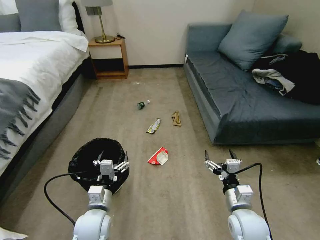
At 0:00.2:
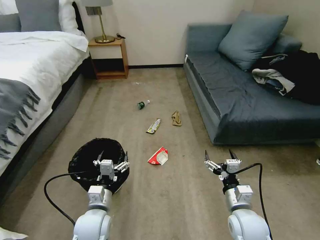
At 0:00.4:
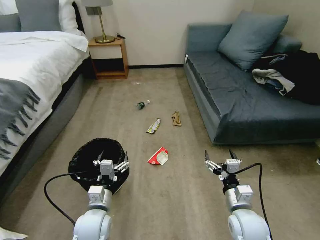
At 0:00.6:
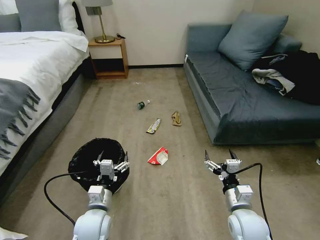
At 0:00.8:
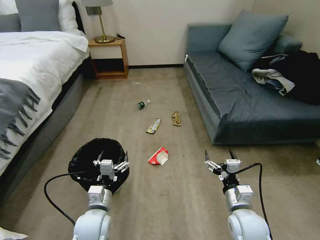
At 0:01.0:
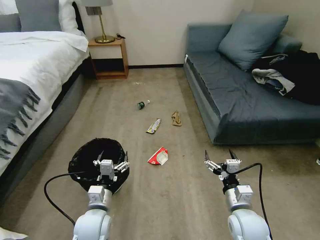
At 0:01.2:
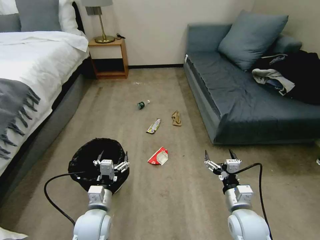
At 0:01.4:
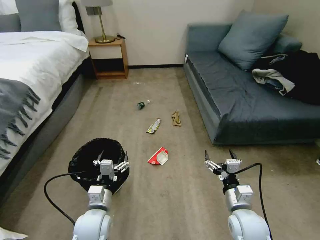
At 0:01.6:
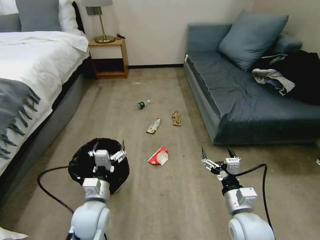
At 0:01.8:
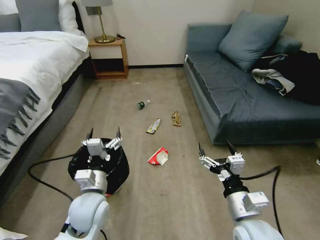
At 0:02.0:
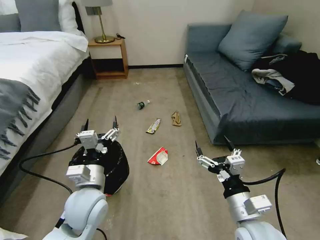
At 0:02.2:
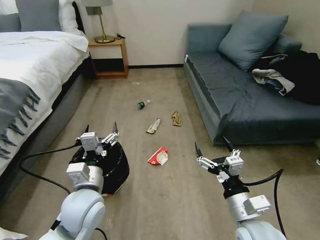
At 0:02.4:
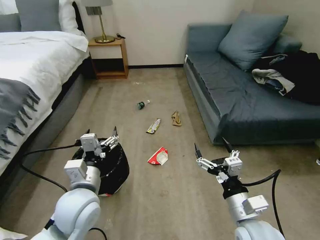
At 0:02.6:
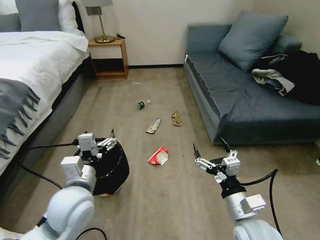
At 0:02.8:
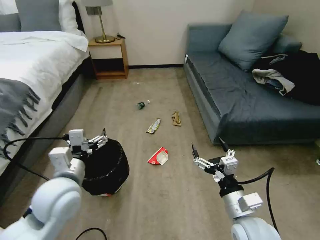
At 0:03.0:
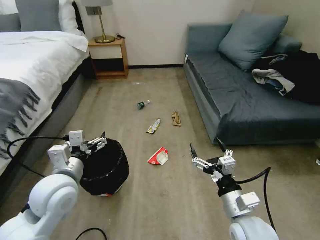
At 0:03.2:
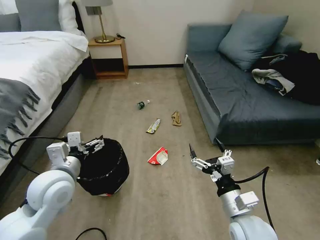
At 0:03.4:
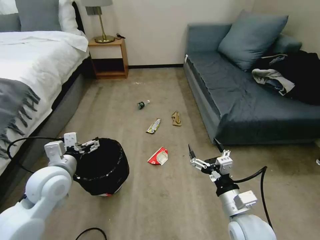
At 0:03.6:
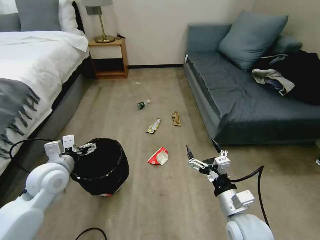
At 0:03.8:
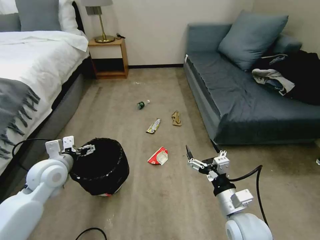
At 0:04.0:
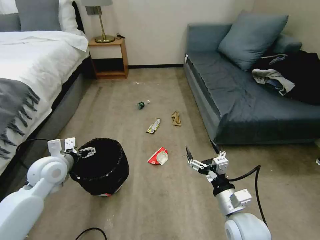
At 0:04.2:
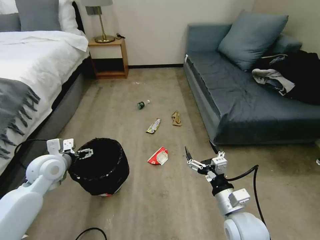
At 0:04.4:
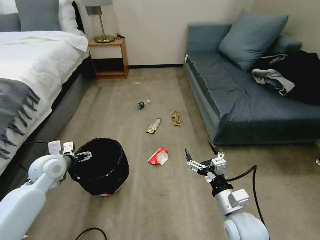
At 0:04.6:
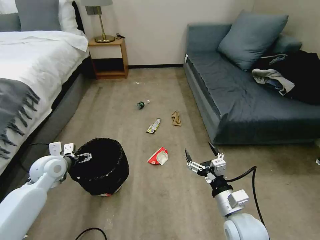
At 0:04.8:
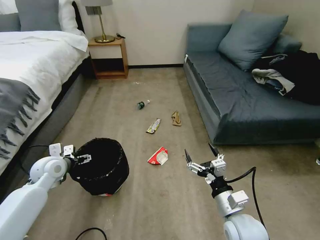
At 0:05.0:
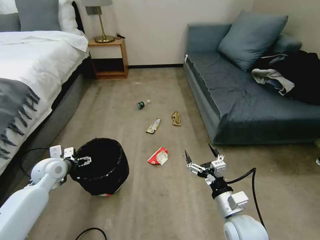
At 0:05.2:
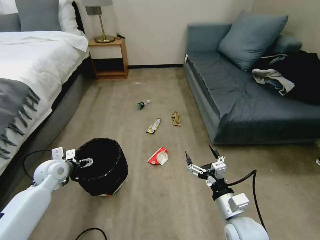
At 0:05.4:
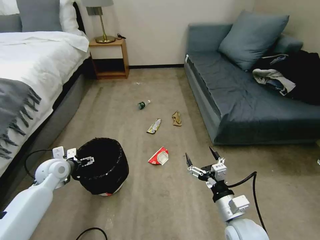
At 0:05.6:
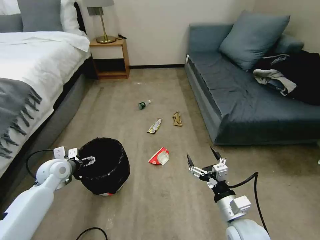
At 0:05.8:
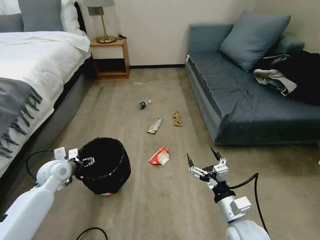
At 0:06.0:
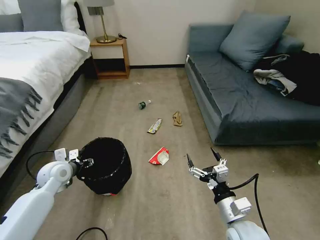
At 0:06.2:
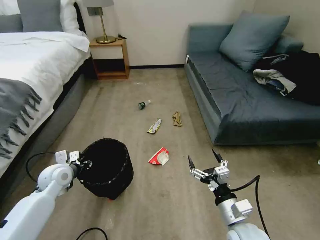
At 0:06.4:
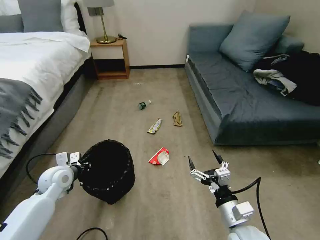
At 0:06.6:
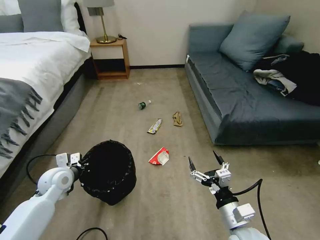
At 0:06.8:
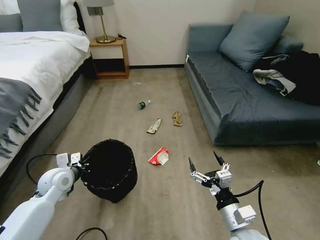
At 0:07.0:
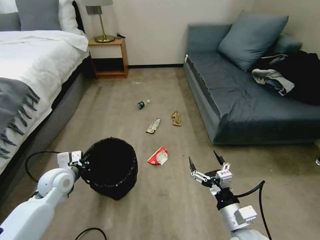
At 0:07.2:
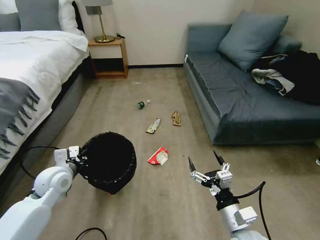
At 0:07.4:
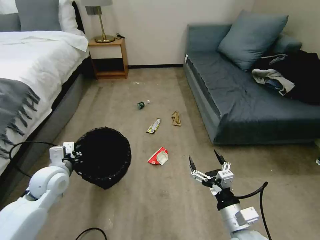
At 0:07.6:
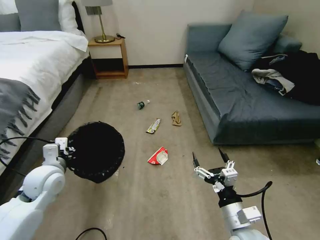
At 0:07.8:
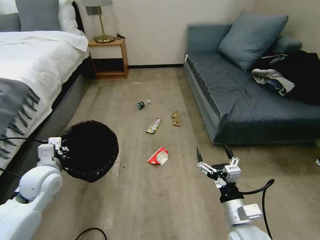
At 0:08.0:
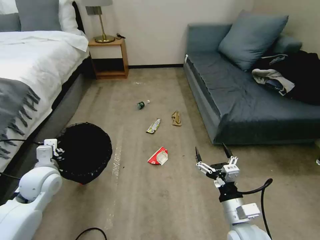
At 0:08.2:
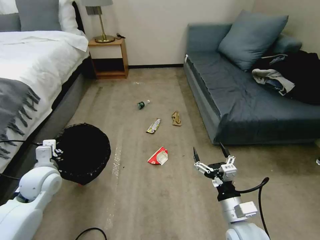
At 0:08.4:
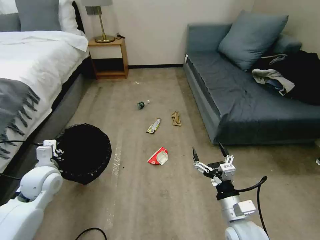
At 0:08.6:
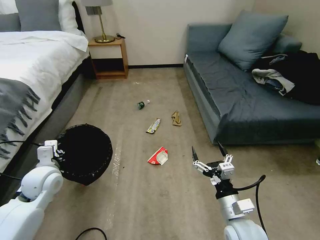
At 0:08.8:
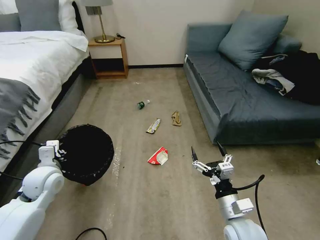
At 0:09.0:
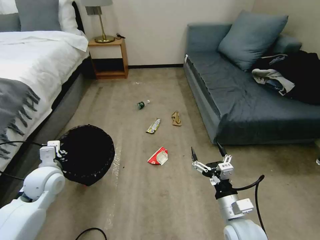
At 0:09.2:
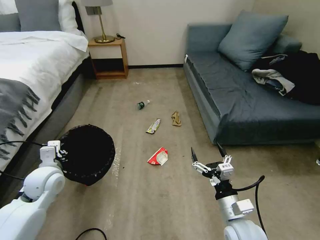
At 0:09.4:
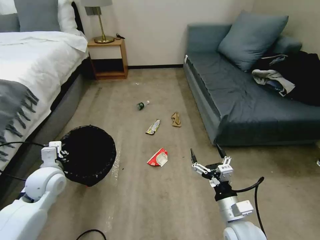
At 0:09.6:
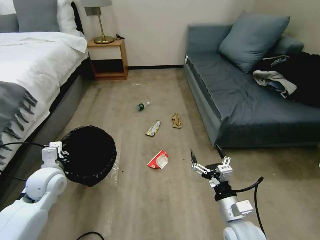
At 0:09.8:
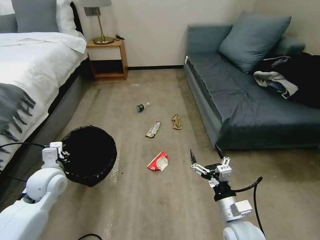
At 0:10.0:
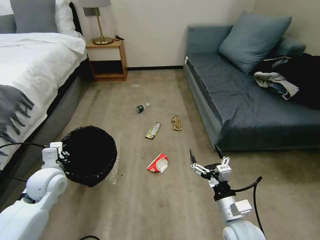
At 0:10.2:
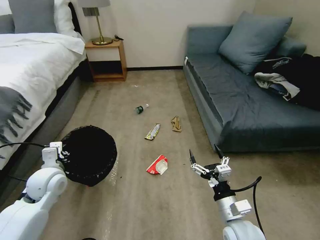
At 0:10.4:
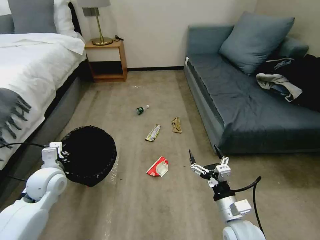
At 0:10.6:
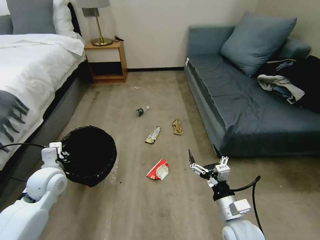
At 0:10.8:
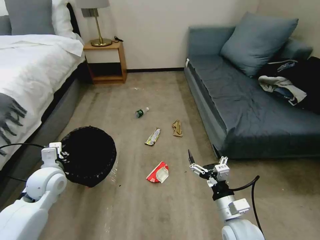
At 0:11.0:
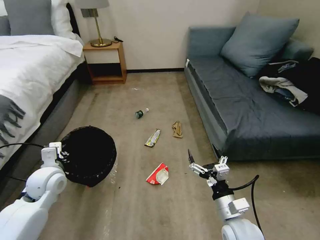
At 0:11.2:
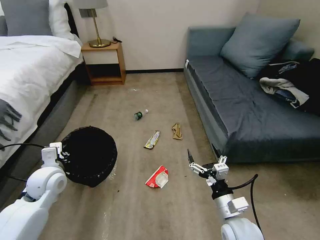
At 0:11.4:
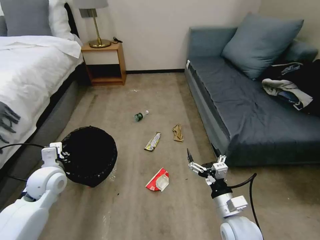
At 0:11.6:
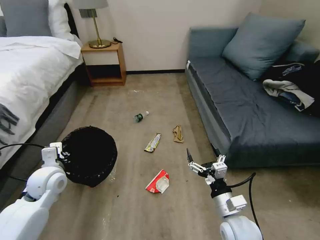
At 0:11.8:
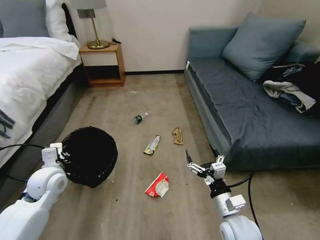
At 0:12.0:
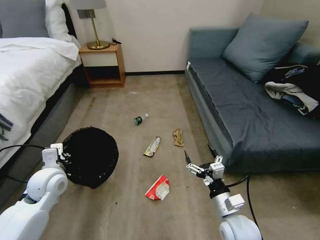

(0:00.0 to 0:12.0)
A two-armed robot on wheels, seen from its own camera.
Task of the whole recording: Pick up the trash bin, then pick up the garbage on the floor and place it into the trash bin.
0:01.6 - 0:03.0: The left gripper travels upward and to the left by roughly 15 cm.
0:03.0 - 0:04.4: The left gripper goes approximately 15 cm to the left, forward and downward.
0:04.4 - 0:06.0: The left gripper heads downward, covering about 5 cm, and closes up.
0:06.0 - 0:07.6: The left gripper goes approximately 10 cm upward and backward, and closes up.
0:07.6 - 0:09.0: The grippers stay close to where they were, moving slightly.
0:09.0 - 0:10.4: Neither gripper changes place.

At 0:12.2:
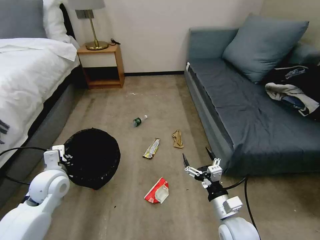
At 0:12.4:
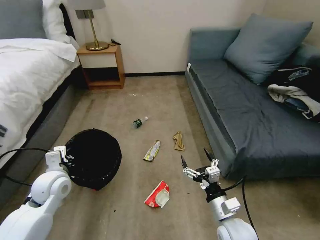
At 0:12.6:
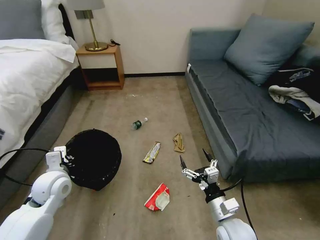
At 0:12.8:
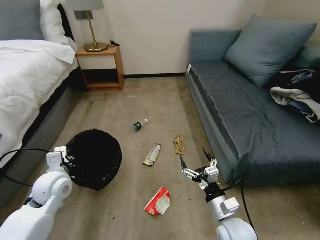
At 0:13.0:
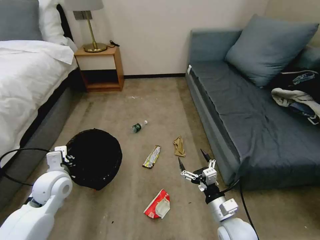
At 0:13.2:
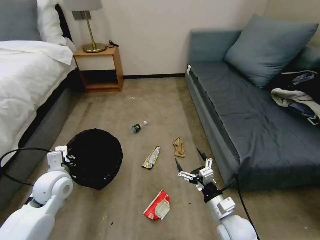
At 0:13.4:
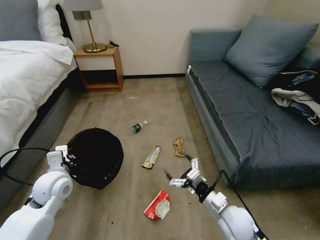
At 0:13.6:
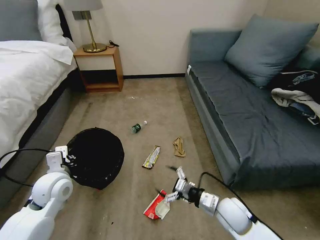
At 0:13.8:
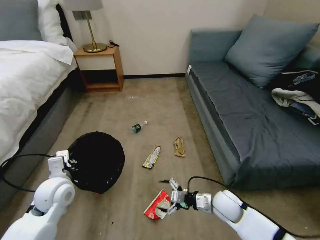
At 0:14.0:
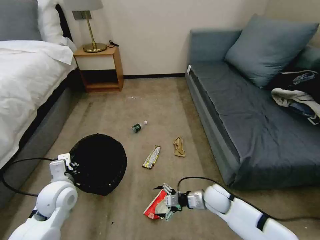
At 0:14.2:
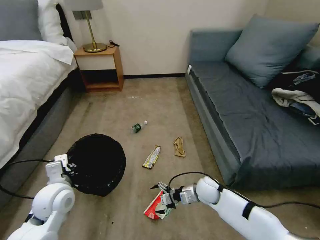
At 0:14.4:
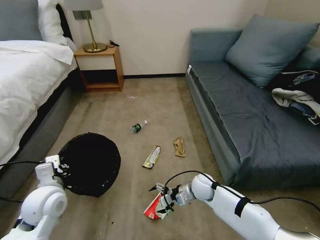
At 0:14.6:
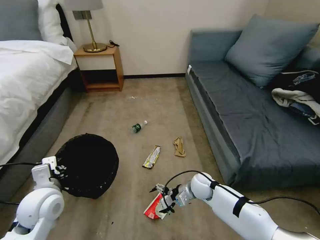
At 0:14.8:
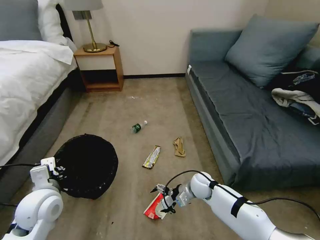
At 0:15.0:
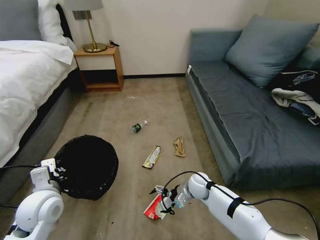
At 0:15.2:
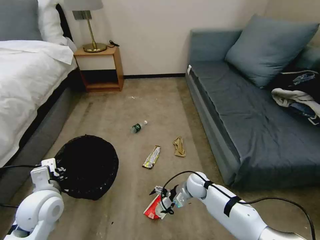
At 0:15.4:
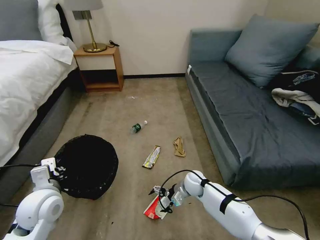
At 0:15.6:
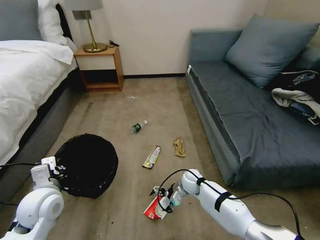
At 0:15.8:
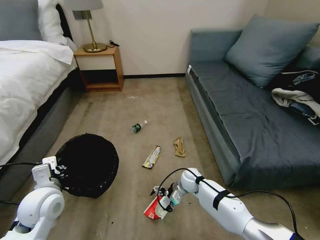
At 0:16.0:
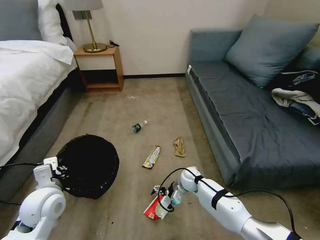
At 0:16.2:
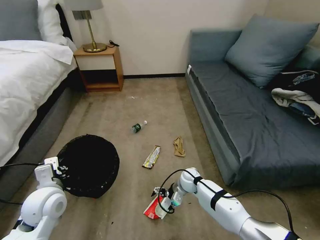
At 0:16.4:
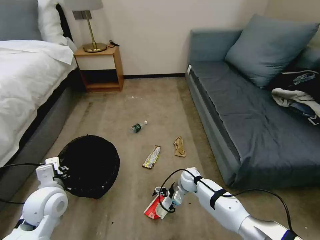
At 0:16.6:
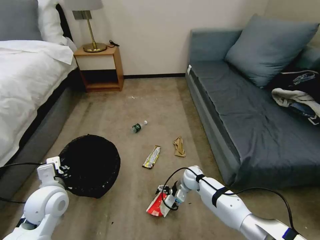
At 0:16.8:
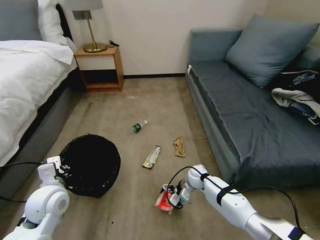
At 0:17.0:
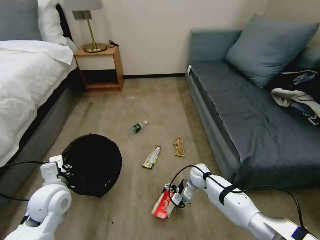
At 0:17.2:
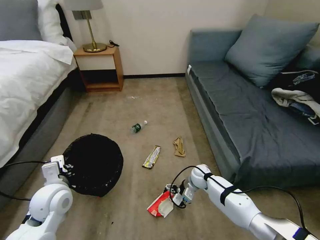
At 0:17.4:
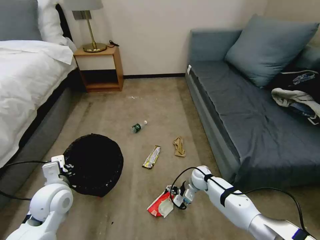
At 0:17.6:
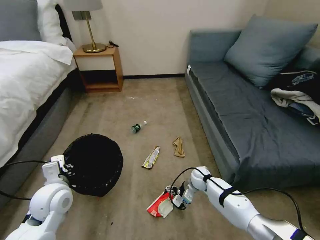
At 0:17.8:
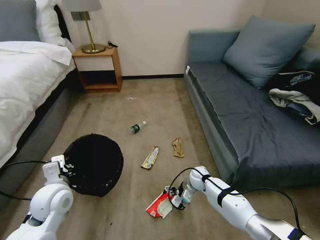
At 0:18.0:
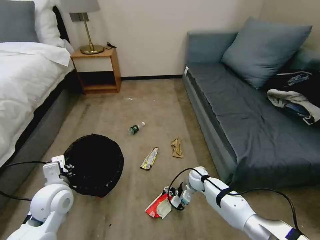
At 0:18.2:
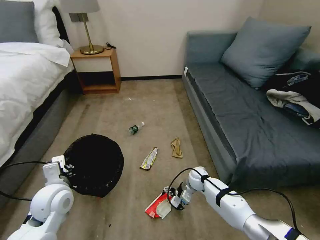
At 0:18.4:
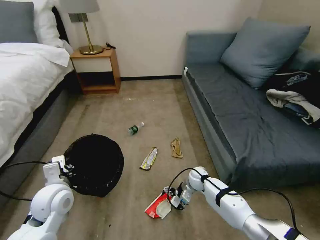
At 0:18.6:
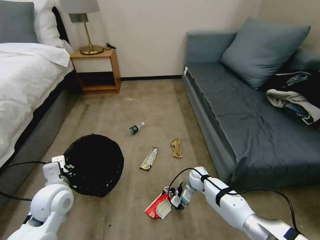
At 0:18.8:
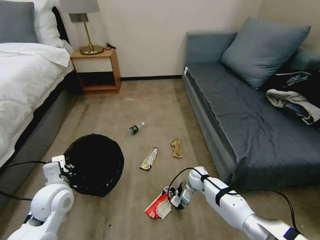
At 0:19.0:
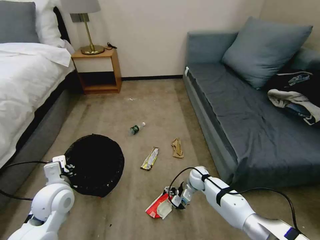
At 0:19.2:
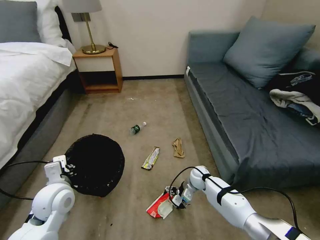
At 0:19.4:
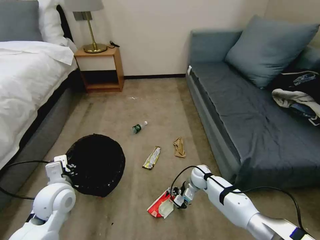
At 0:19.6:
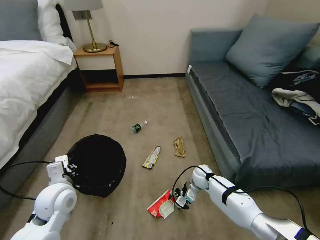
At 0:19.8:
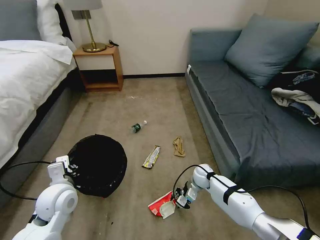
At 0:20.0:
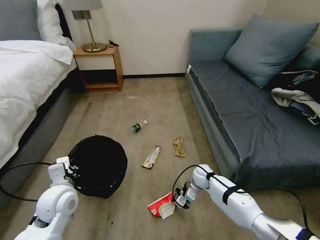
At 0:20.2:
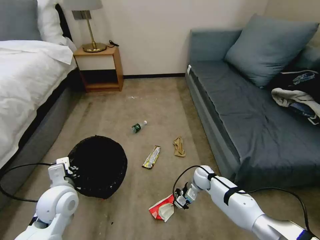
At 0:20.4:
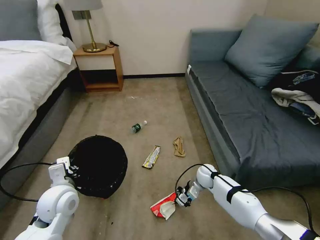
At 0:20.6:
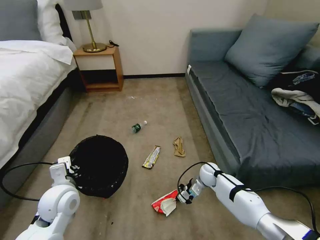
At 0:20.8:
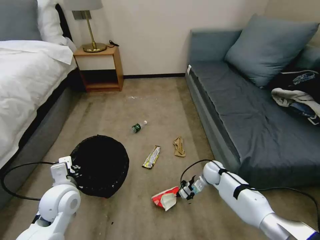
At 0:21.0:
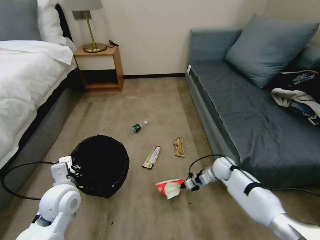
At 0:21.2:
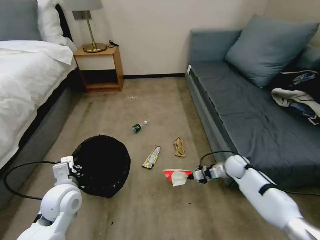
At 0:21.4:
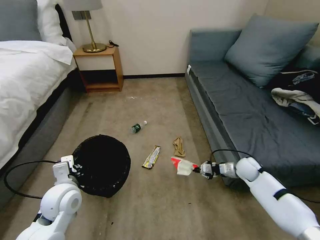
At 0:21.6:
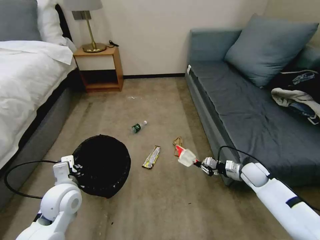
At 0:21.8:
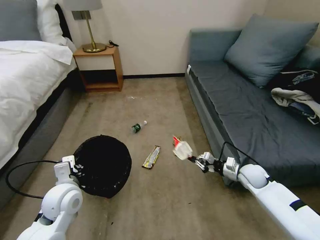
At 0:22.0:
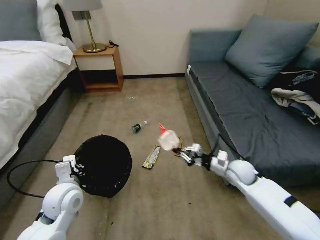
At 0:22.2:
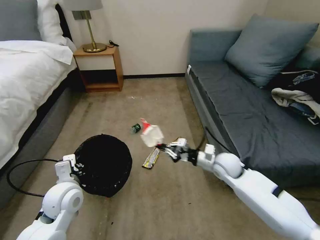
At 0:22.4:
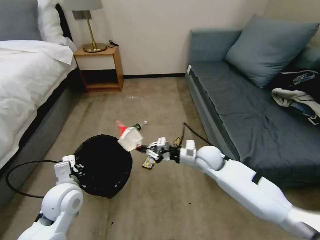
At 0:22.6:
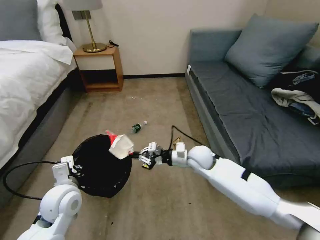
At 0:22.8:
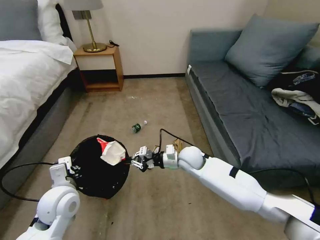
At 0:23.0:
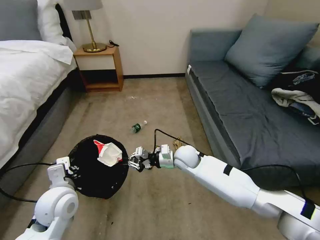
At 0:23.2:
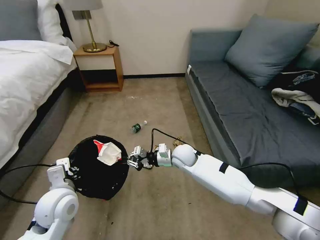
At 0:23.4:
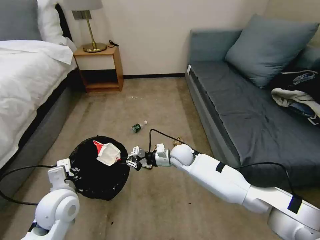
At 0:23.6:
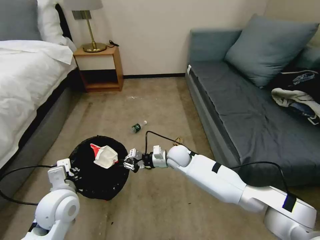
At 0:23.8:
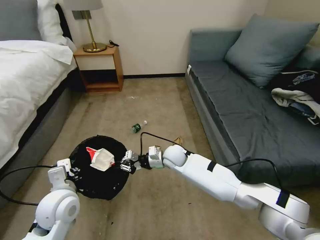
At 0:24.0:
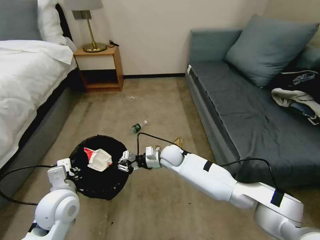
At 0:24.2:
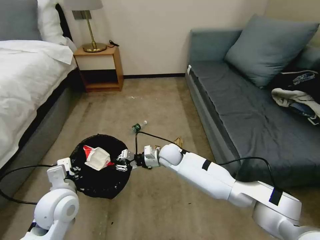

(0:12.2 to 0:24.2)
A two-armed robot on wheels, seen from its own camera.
Task of the whole recording: Pick up the trash bin, then pick up the garbage on the floor and place it into the trash bin.
0:12.2 - 0:13.8: The right gripper goes approximately 10 cm forward and downward.
0:13.8 - 0:15.2: The right gripper is displaced forward and to the left by some 15 cm.
0:15.2 - 0:18.2: There are only small adjustments of the grippers.
0:18.2 - 0:19.8: The right gripper closes its fingers.
0:19.8 - 0:21.2: The right gripper shifts some 15 cm to the right, and closes up.
0:21.2 - 0:22.6: The right gripper heads to the left and upward, covering roughly 20 cm.
0:22.6 - 0:24.2: The right gripper goes approximately 10 cm to the left.
